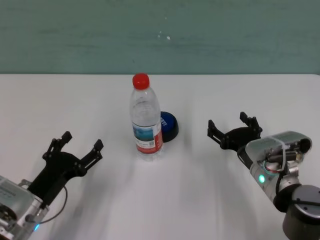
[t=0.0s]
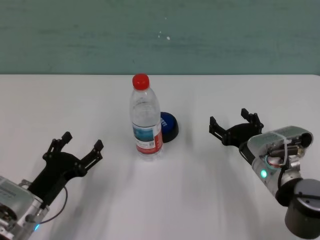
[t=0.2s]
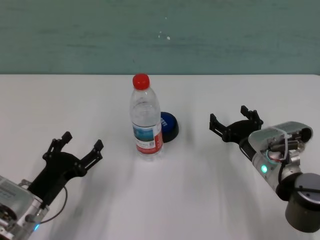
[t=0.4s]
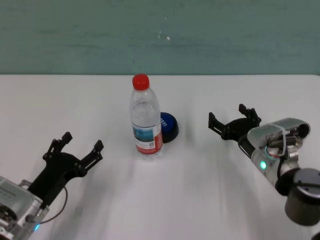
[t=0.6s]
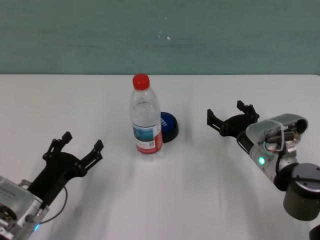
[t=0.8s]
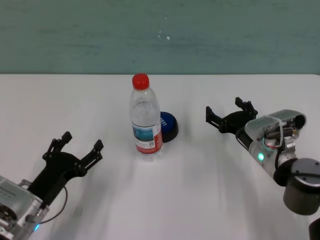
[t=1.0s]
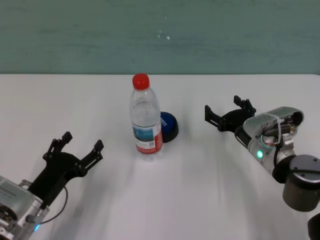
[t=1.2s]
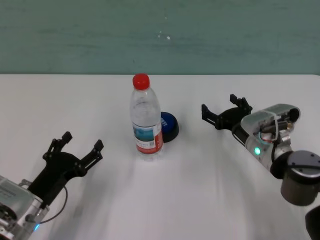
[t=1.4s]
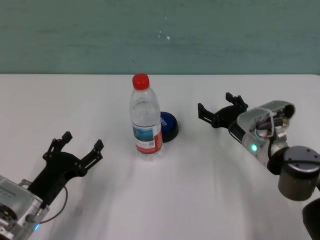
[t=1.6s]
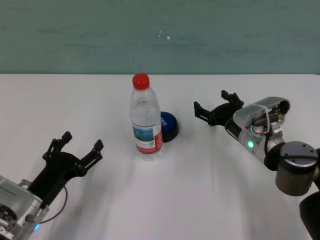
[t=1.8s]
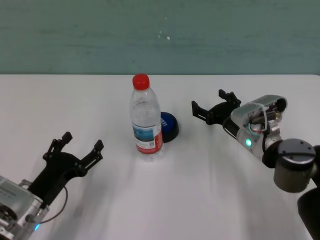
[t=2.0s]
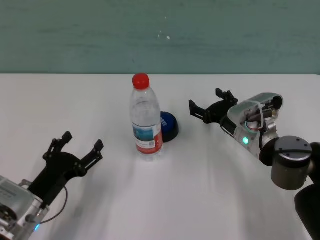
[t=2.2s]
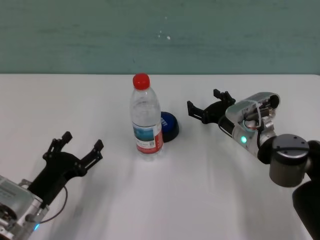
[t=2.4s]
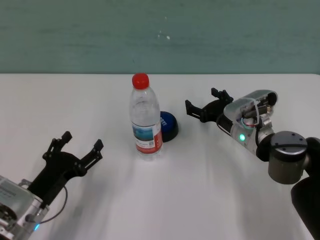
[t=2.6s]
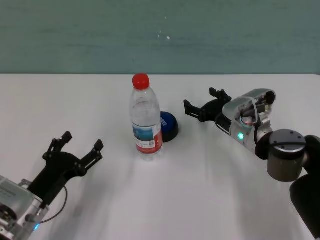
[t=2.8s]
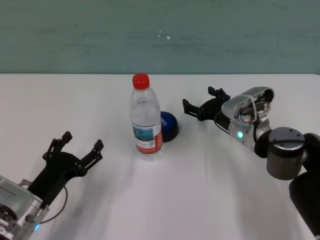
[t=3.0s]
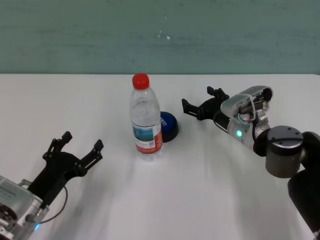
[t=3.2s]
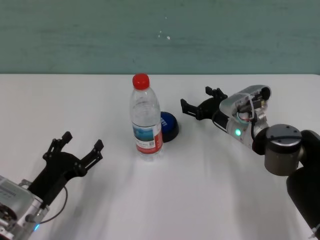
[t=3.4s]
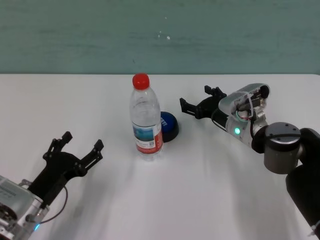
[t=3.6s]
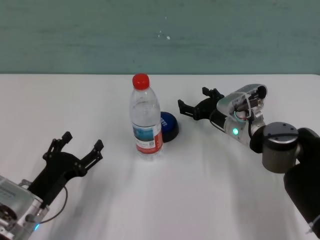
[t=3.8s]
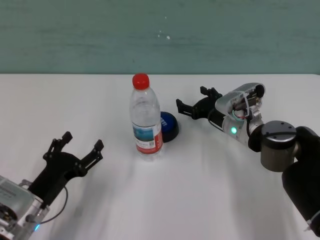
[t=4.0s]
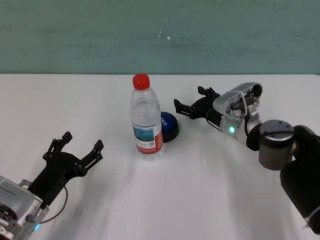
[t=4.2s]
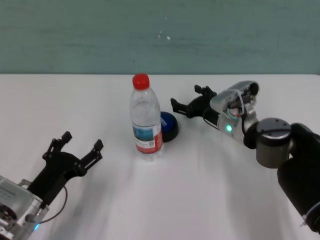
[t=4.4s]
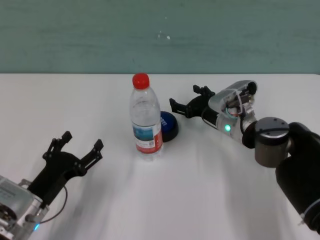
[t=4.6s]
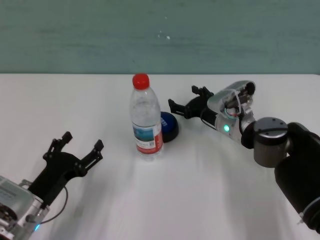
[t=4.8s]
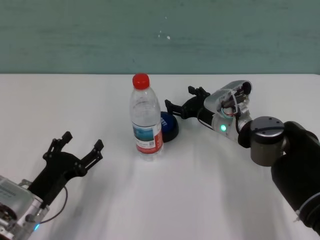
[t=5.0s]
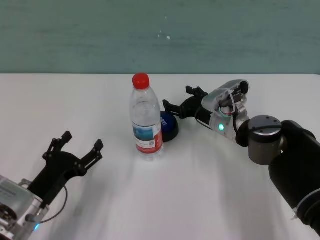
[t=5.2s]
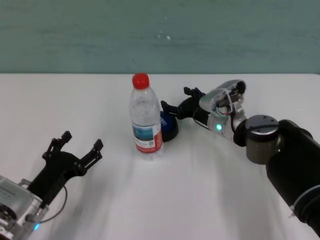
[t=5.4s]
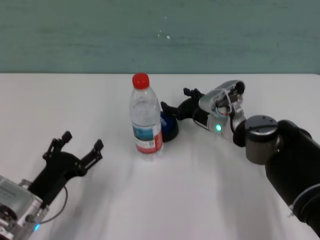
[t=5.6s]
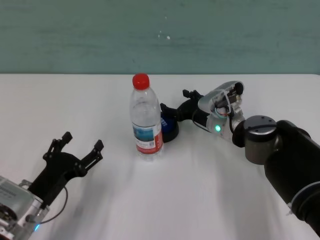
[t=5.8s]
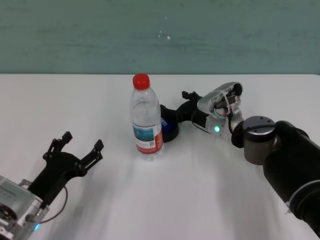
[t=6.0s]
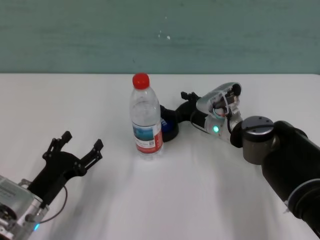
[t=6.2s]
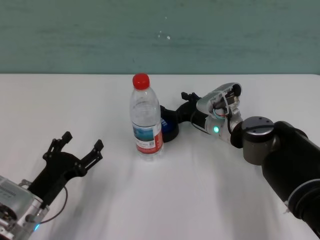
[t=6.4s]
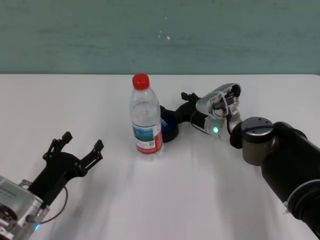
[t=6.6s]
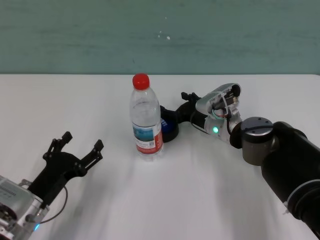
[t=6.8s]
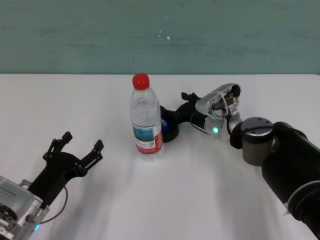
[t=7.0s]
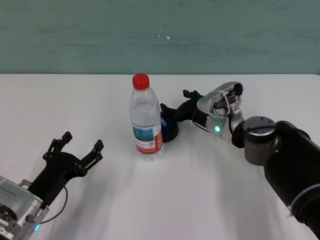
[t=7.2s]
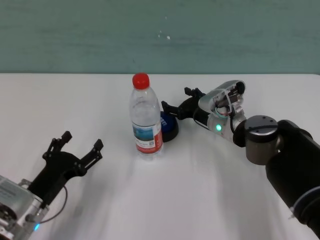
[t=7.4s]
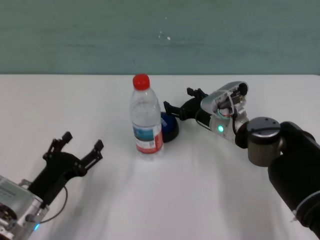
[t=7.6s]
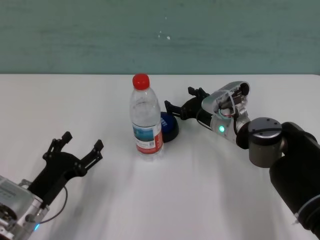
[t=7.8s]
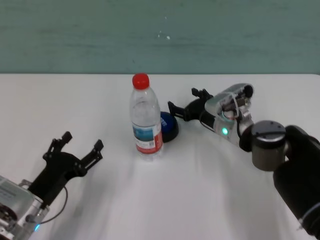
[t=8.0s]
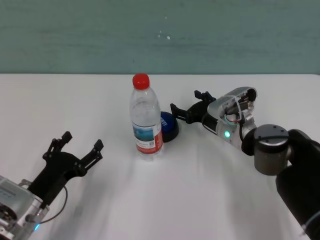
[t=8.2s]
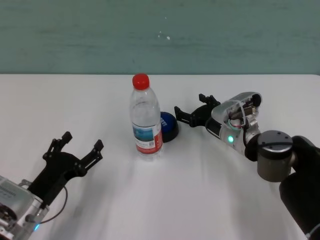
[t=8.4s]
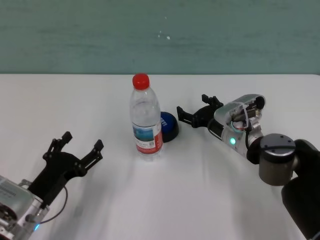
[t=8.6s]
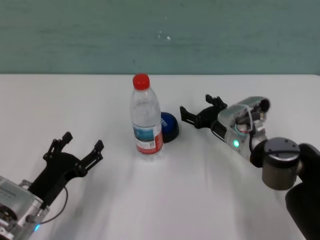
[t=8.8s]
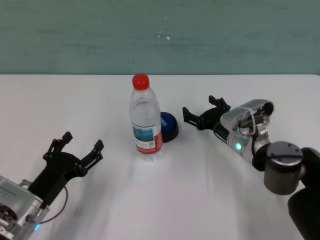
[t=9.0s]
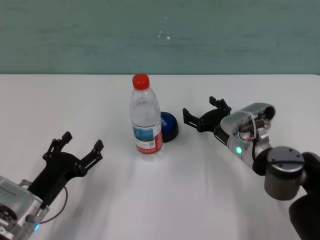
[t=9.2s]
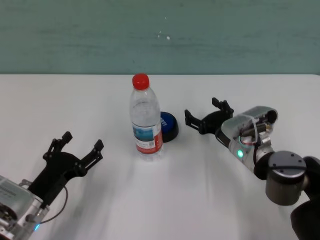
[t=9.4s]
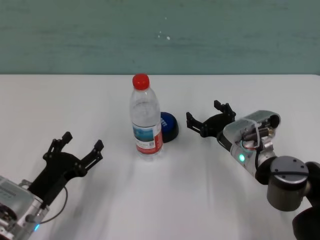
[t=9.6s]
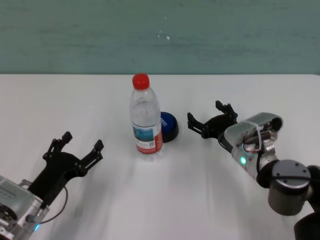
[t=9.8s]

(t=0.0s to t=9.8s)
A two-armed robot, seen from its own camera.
Task of the whole recording: after avoiding the water bottle on the table, press the button.
Step, t=0.0s - t=7.0s: Press the button blocked by the bottle with right gripper.
